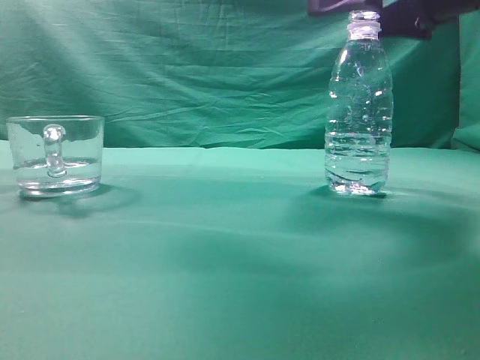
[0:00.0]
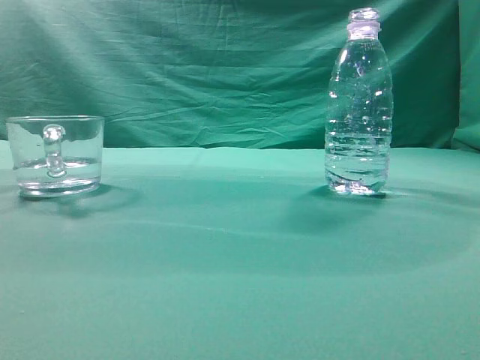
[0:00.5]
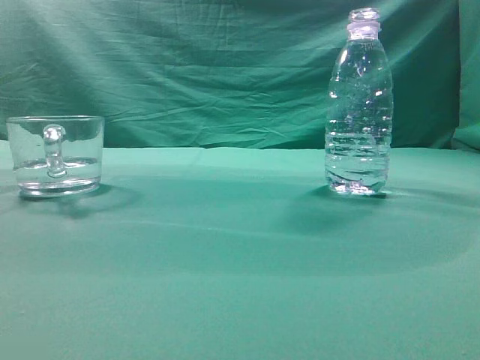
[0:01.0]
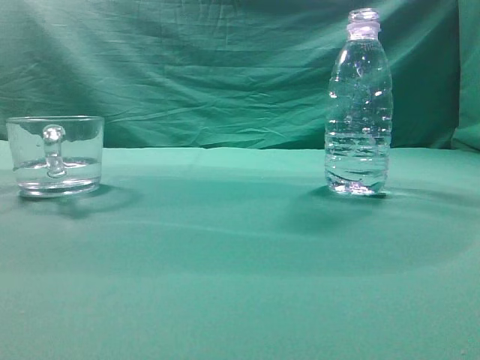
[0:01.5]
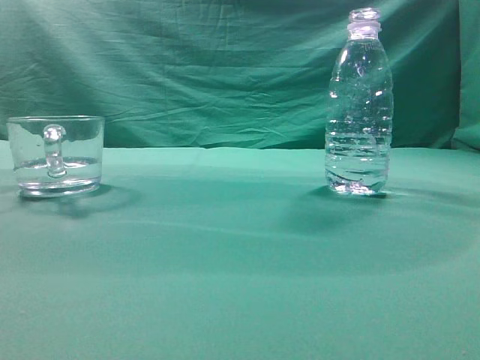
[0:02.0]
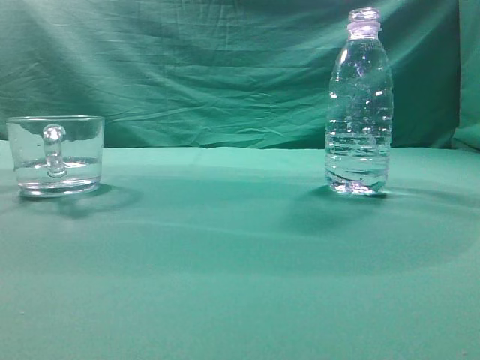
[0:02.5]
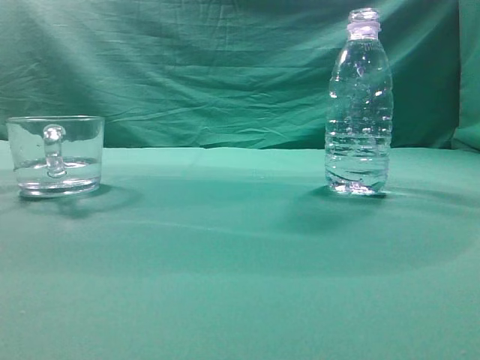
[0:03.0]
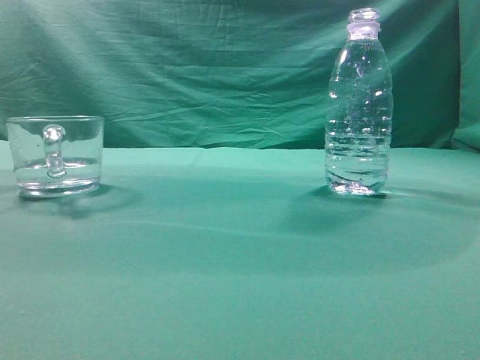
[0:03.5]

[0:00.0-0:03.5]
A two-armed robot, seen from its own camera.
Task of the whole recording: pick up the water bottle and pour the water in it into the glass.
0:00.0 to 0:02.0: The right gripper shifts about 25 cm backward and upward, and closes up.
